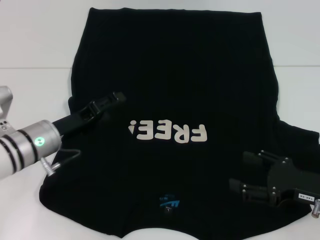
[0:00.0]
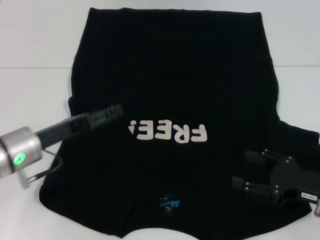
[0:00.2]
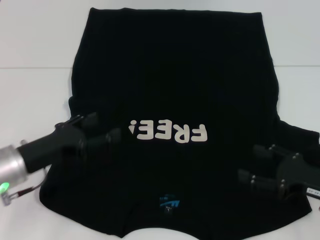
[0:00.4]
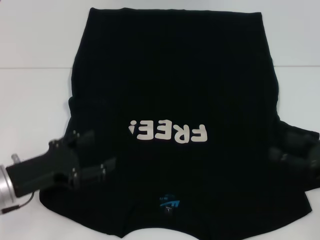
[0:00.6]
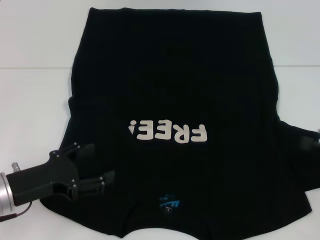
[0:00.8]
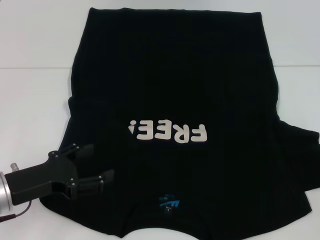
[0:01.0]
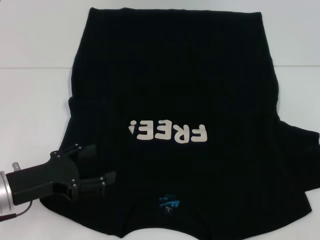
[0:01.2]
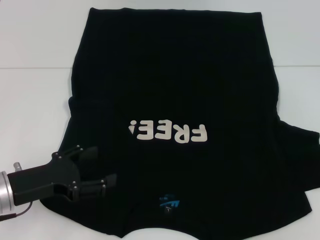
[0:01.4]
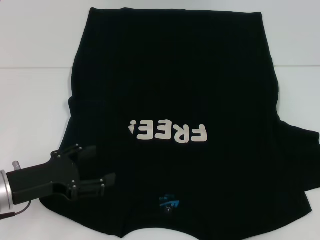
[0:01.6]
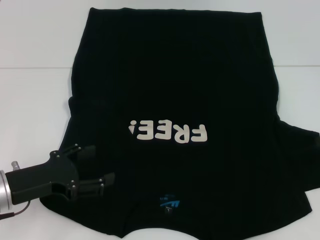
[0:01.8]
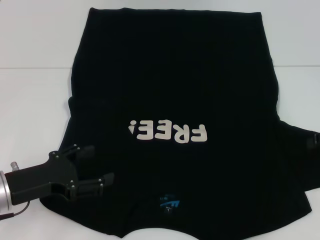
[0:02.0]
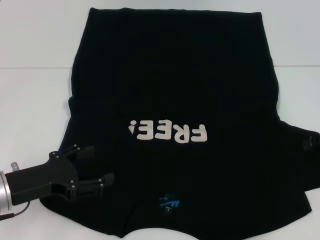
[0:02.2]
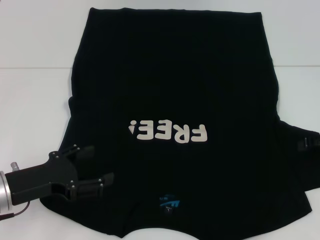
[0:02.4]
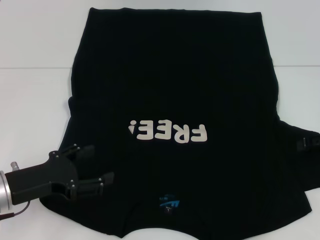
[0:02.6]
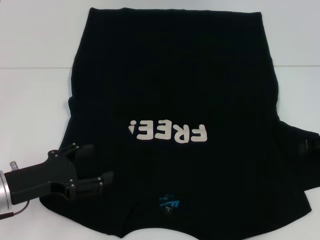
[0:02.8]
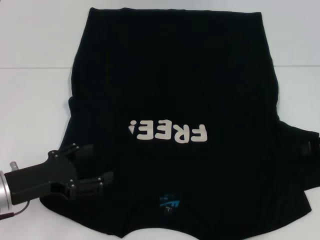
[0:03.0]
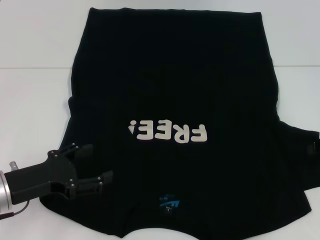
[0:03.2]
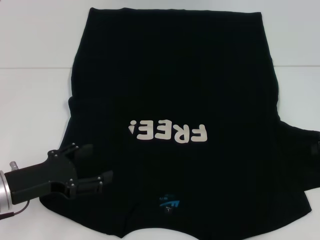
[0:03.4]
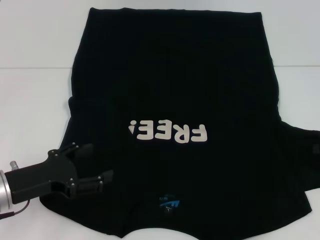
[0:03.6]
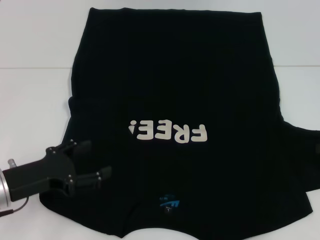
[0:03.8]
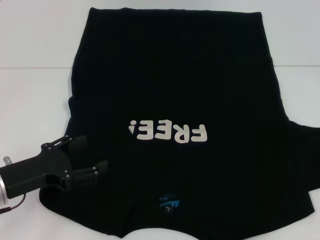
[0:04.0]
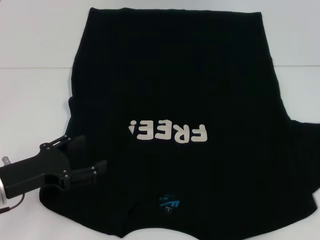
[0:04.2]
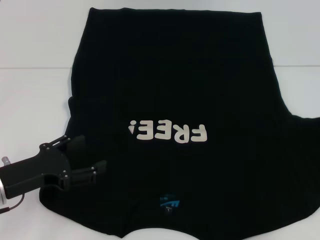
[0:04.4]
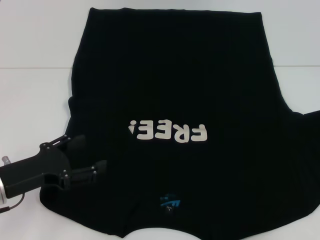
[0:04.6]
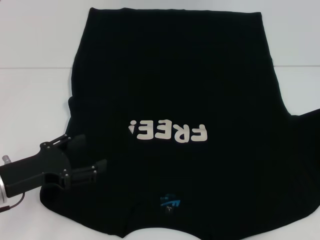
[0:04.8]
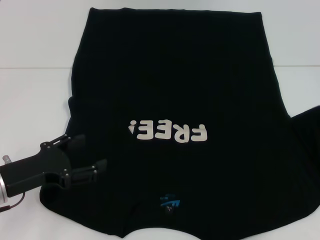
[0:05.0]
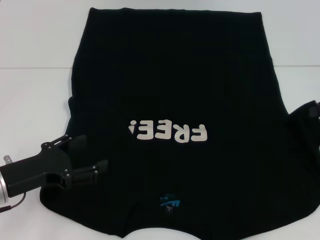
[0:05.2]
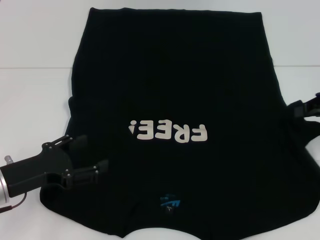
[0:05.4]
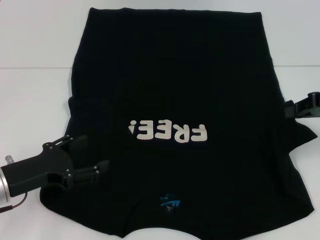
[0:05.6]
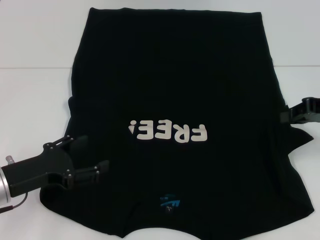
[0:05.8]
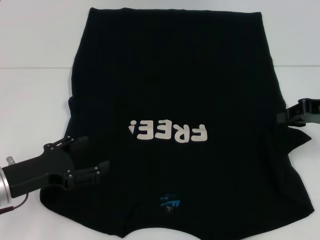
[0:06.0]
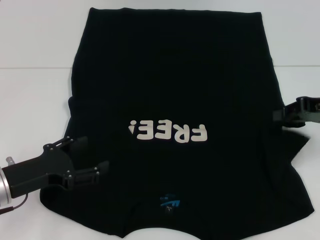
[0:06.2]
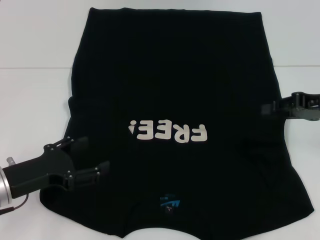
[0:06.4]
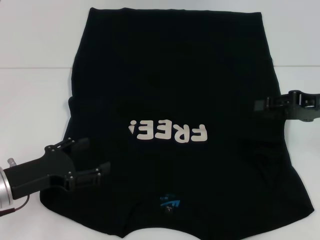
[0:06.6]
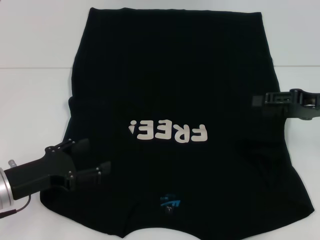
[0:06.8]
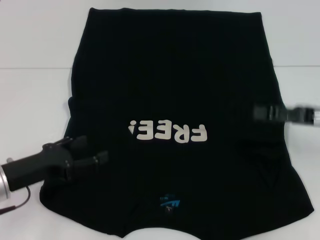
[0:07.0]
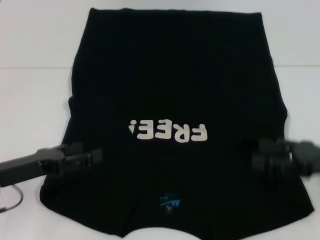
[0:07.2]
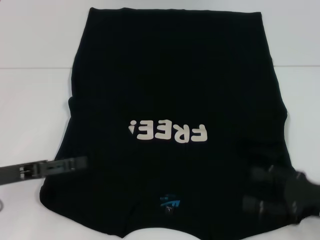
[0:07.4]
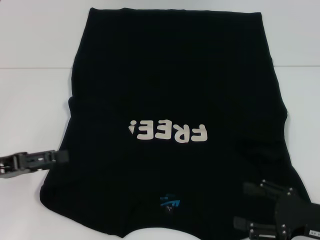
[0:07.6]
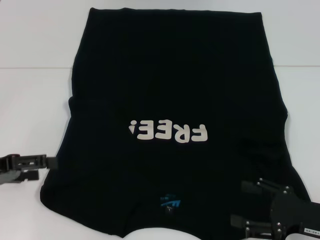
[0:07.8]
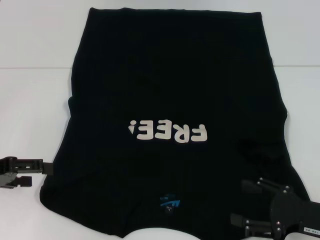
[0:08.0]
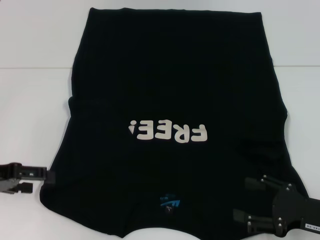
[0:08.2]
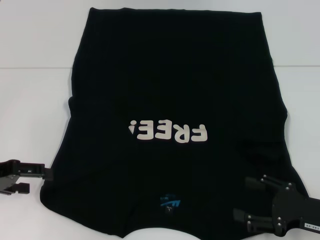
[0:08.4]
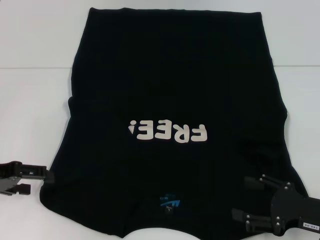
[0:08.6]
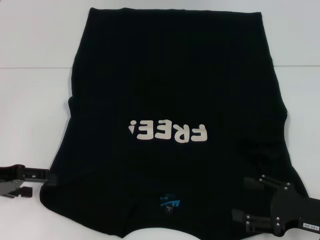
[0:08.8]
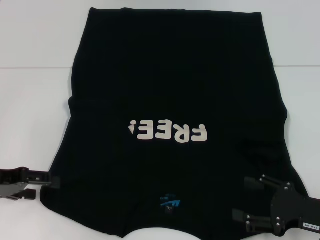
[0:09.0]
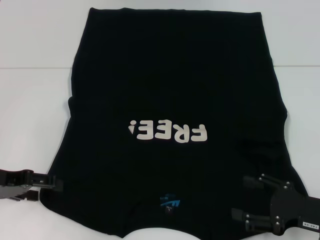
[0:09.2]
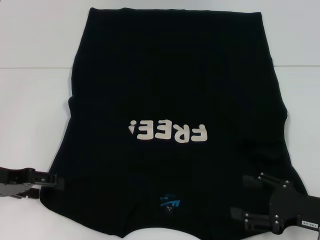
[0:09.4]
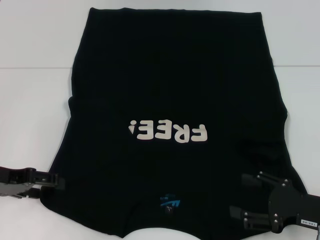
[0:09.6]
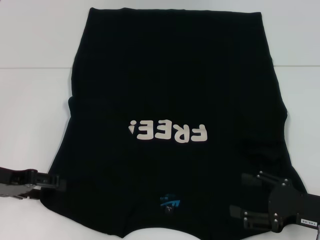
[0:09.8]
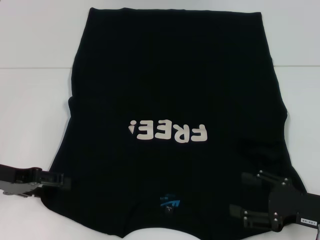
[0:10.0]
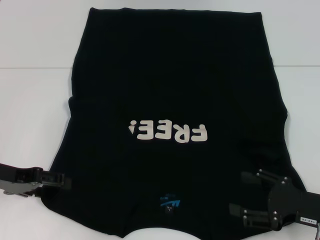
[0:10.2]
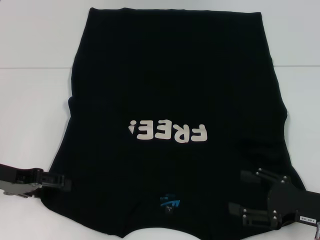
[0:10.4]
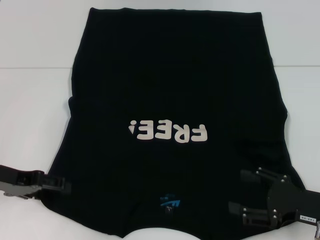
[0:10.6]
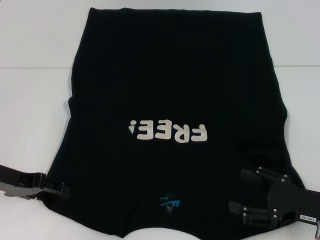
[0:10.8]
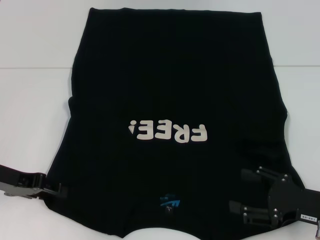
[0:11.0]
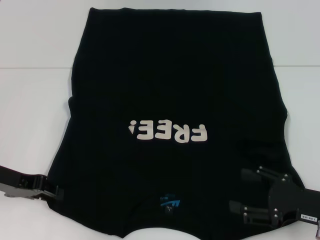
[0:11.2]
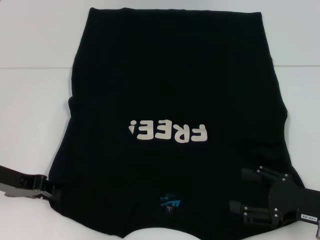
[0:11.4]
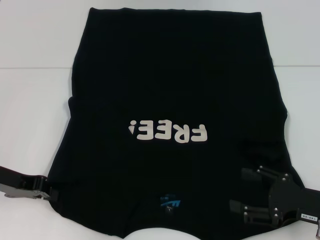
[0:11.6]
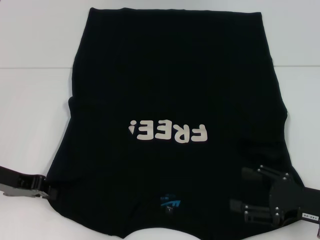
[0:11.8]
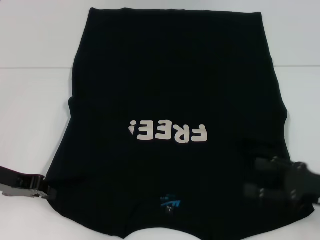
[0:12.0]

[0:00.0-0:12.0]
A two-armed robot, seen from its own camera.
Step, 0:00.0 to 0:07.0: Fold the bottom right sleeve with your right hand.
Step, 0:07.2 to 0:12.0: Grab the bottom left corner with your left hand.
0:00.0 to 0:01.6: The right gripper goes roughly 20 cm to the right, upward and forward, while the left gripper shifts approximately 10 cm backward.
0:03.0 to 0:04.4: The right gripper moves about 5 cm, and closes its fingers.
0:04.4 to 0:06.0: The right gripper goes about 10 cm to the left.
0:06.0 to 0:07.6: The right gripper travels backward and downward by some 20 cm, and opens. Meanwhile the left gripper shifts about 5 cm to the left.
0:09.0 to 0:10.4: The grippers make only small movements.
0:10.4 to 0:12.0: The left gripper closes up.

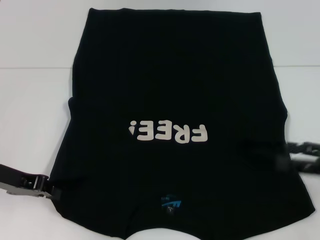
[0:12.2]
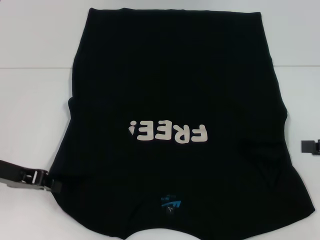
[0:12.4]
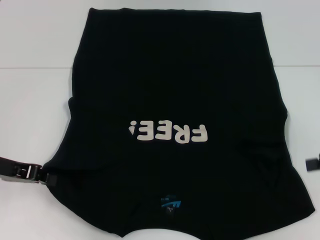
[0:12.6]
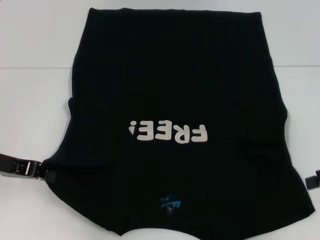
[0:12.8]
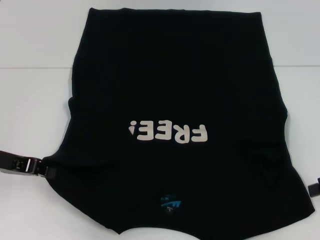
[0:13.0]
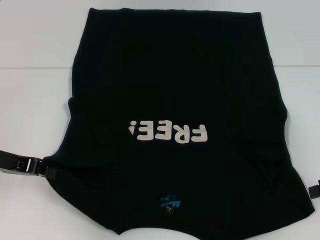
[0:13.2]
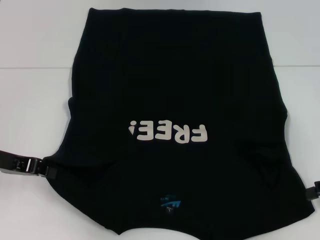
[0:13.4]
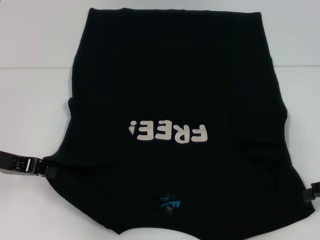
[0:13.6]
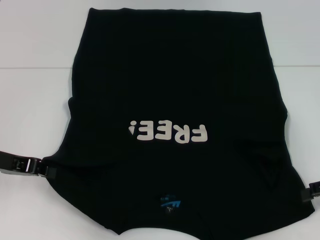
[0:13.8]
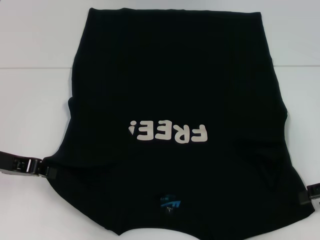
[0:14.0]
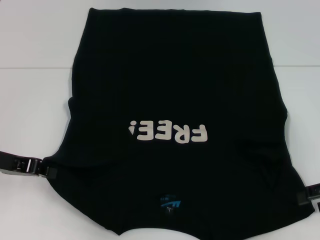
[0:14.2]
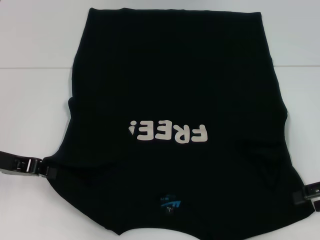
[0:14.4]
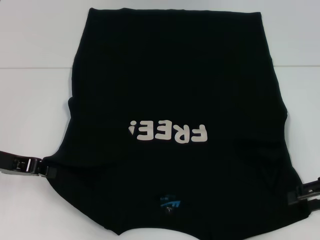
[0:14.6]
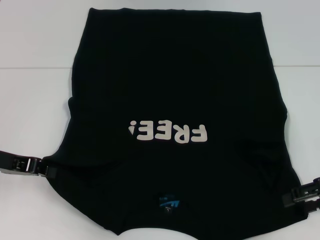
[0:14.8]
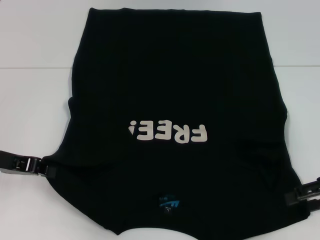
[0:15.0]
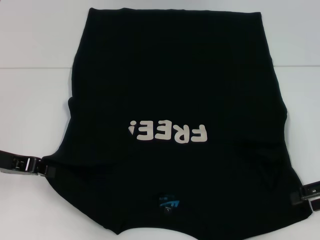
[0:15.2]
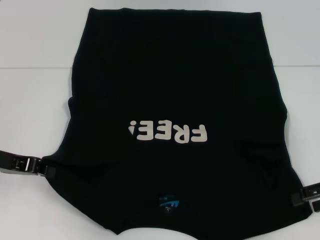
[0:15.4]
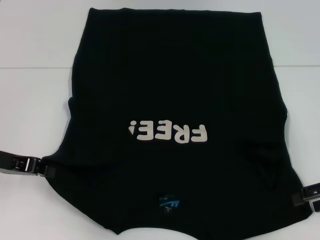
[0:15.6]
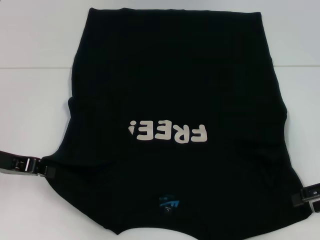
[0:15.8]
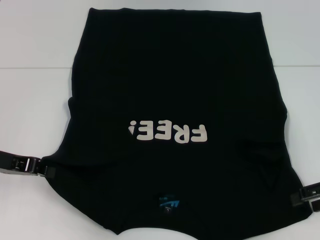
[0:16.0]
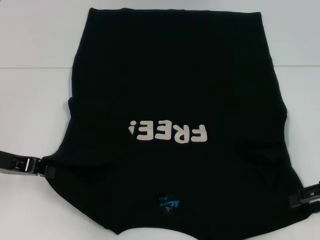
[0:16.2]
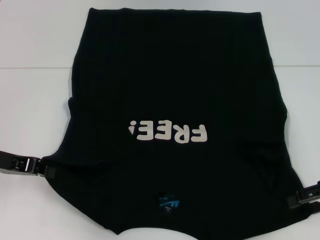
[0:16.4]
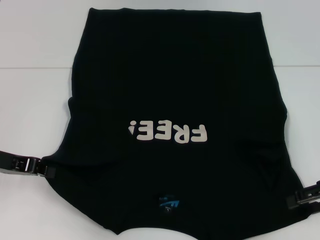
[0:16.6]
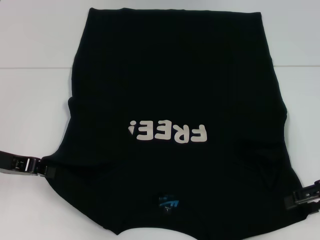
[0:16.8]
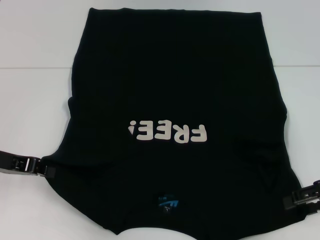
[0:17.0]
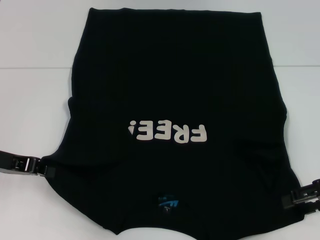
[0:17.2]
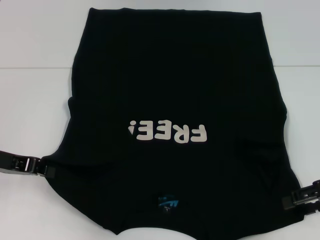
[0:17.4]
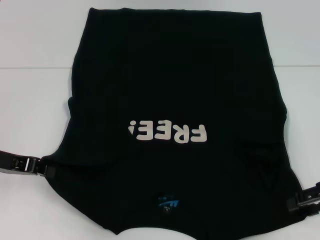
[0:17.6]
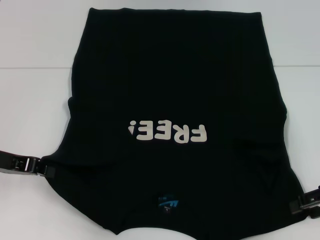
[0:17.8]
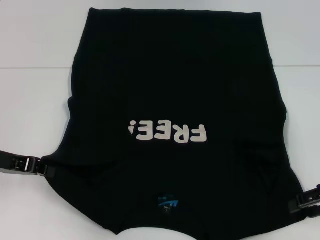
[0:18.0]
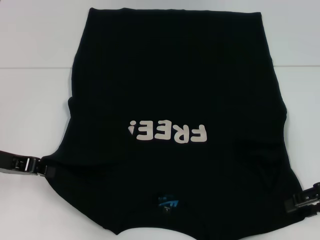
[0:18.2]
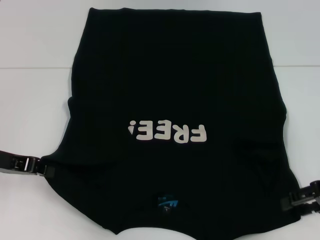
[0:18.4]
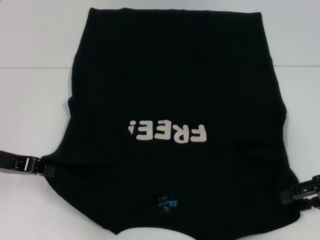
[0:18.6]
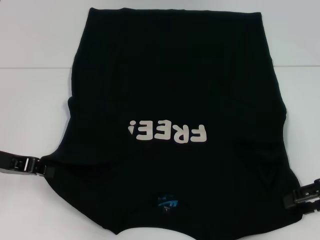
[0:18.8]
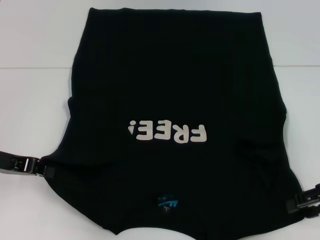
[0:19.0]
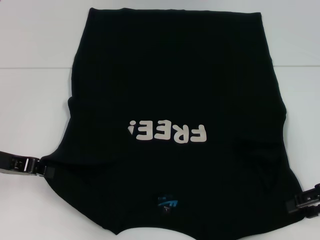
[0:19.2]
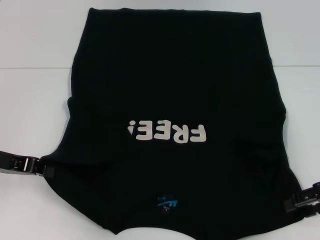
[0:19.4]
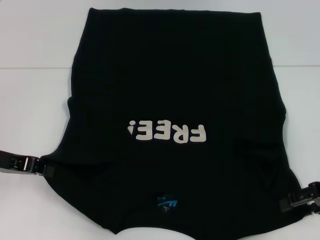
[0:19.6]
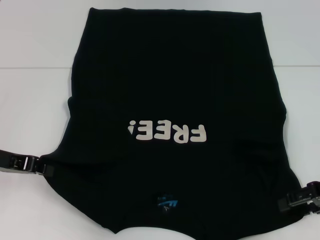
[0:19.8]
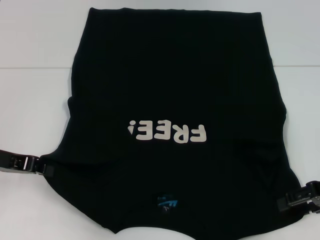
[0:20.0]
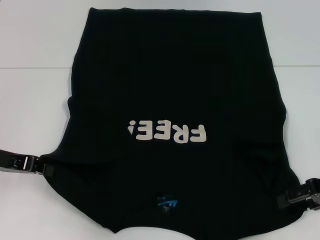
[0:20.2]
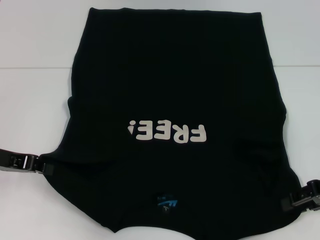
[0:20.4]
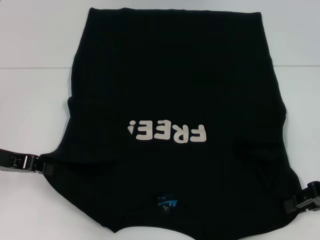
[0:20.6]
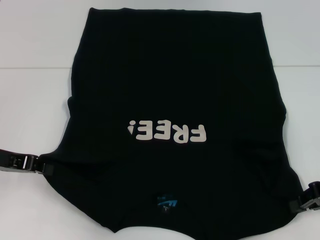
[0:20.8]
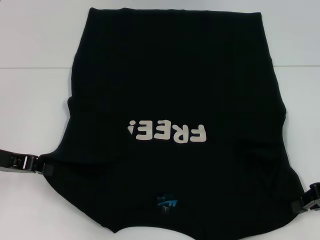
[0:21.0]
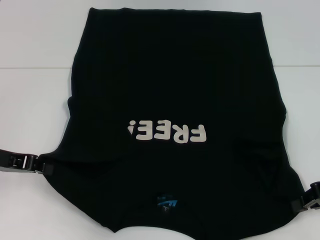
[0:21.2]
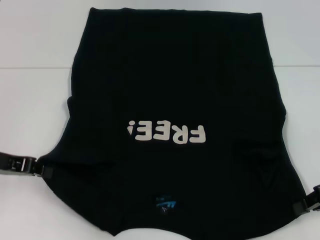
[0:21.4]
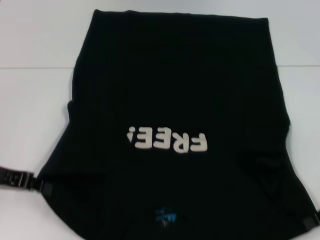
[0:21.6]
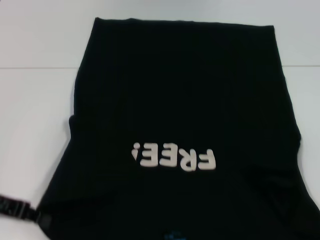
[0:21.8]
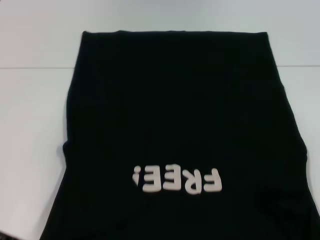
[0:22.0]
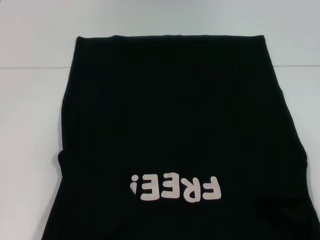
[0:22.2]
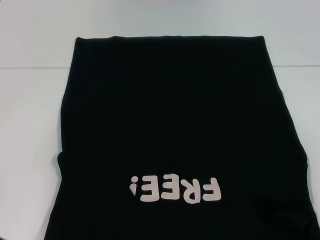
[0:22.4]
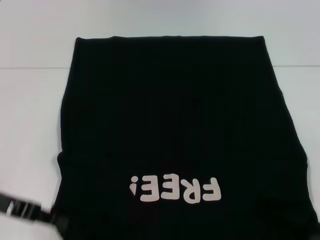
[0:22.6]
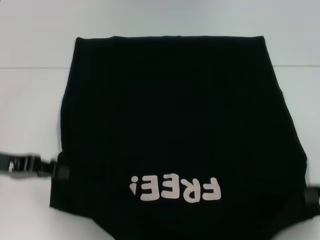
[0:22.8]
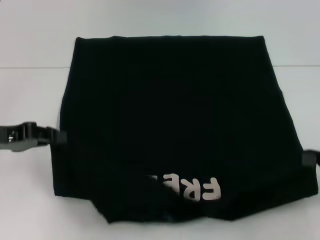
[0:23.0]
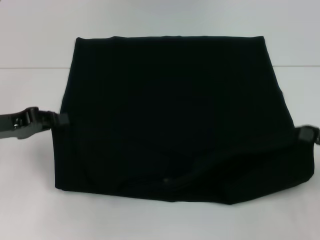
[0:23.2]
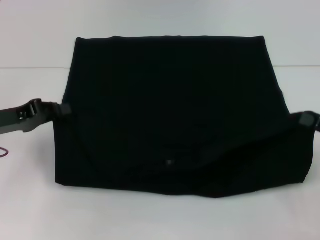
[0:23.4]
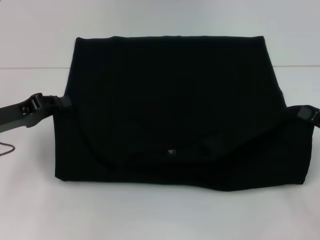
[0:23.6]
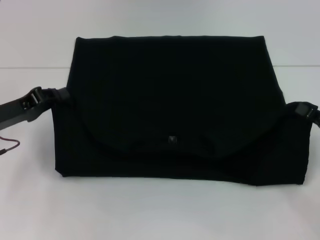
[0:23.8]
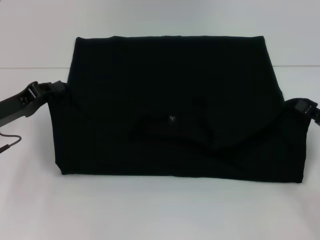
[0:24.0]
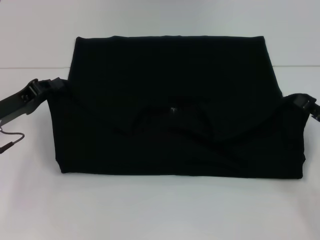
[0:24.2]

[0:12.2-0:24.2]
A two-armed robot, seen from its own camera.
Step, 0:12.2 to 0:21.4: Grab the bottom right corner with your right hand.
0:13.8 to 0:15.2: The grippers move only a little.
0:15.2 to 0:18.2: The two grippers keep their place.
0:18.2 to 0:19.8: The grippers move only a little.
0:19.8 to 0:21.2: The right gripper closes up.
0:22.6 to 0:24.2: The right gripper moves downward, approximately 5 cm, while the left gripper travels forward by about 5 cm.
